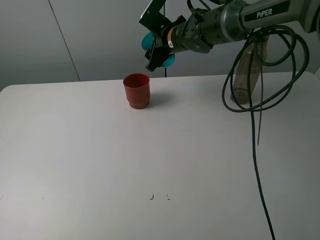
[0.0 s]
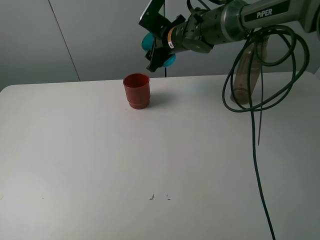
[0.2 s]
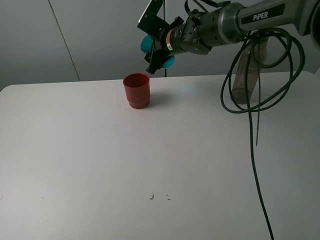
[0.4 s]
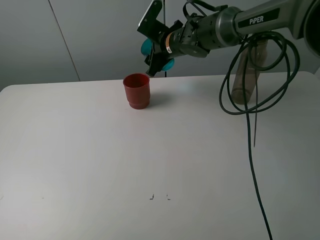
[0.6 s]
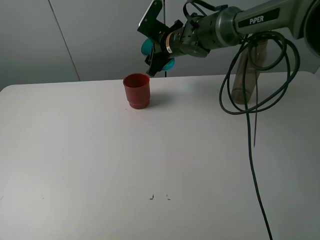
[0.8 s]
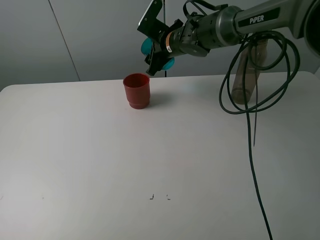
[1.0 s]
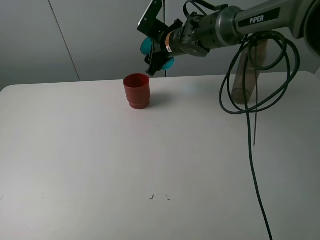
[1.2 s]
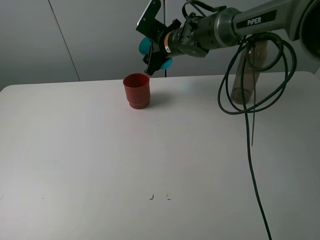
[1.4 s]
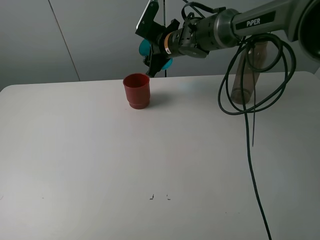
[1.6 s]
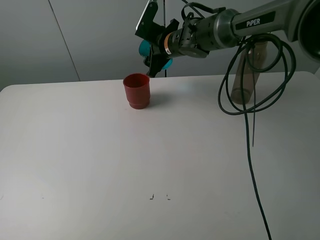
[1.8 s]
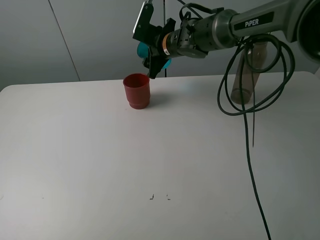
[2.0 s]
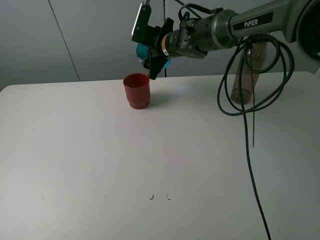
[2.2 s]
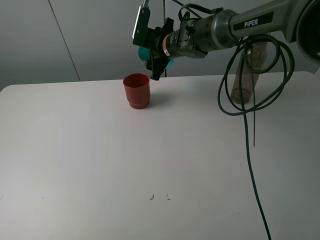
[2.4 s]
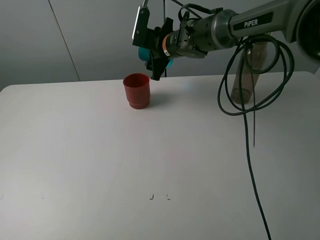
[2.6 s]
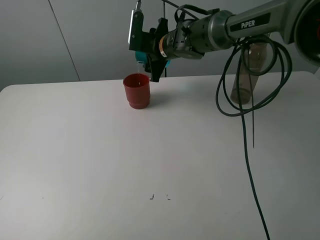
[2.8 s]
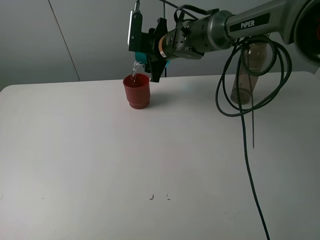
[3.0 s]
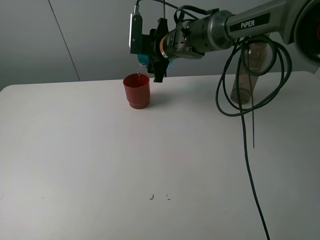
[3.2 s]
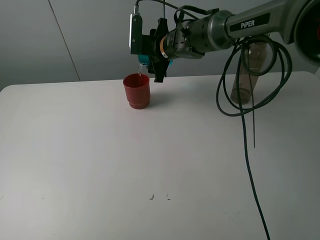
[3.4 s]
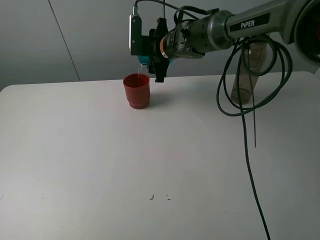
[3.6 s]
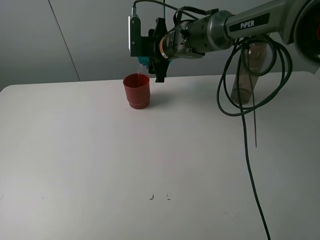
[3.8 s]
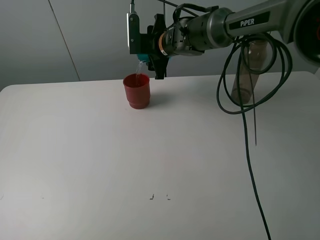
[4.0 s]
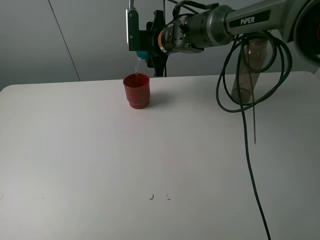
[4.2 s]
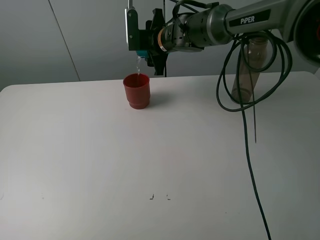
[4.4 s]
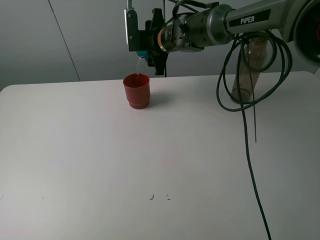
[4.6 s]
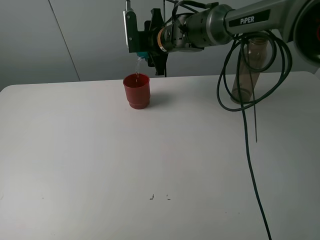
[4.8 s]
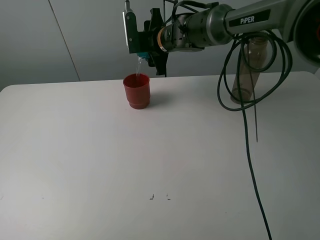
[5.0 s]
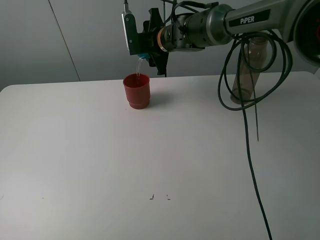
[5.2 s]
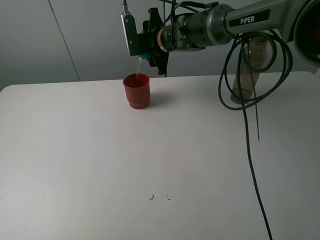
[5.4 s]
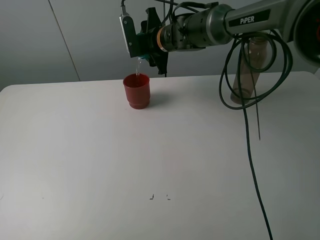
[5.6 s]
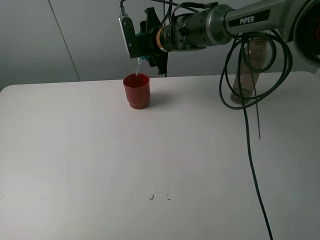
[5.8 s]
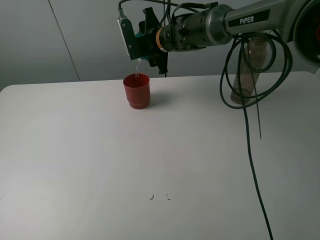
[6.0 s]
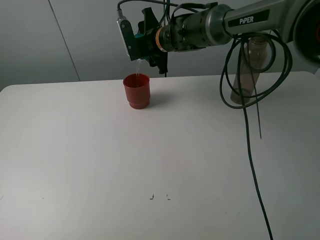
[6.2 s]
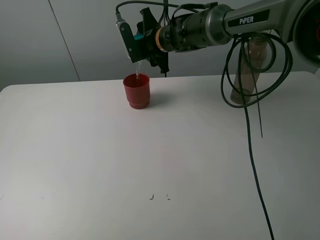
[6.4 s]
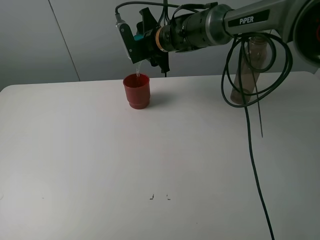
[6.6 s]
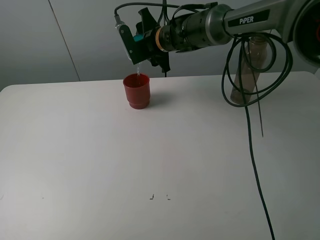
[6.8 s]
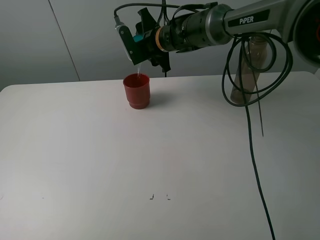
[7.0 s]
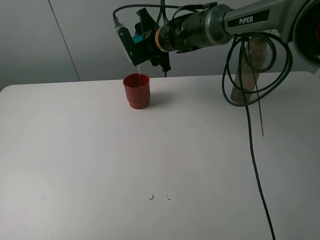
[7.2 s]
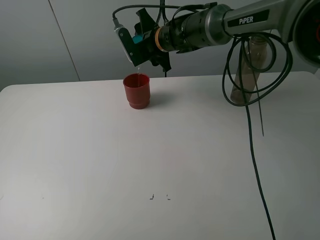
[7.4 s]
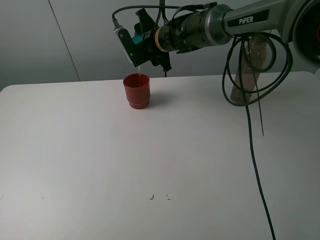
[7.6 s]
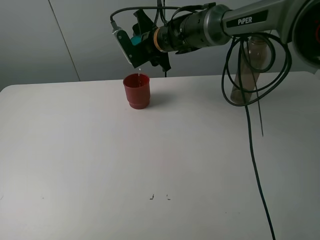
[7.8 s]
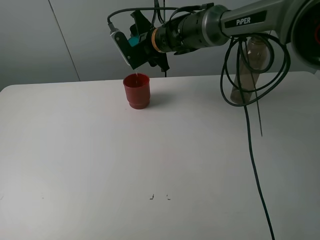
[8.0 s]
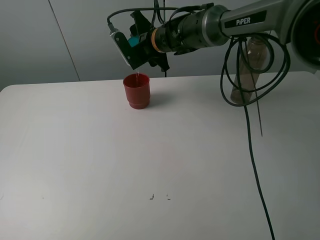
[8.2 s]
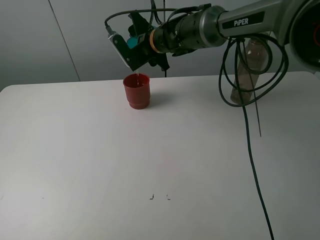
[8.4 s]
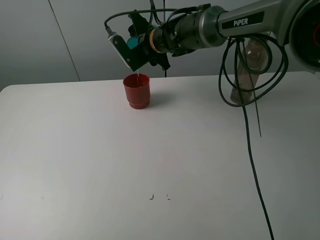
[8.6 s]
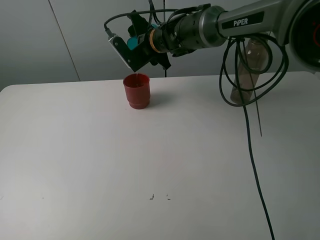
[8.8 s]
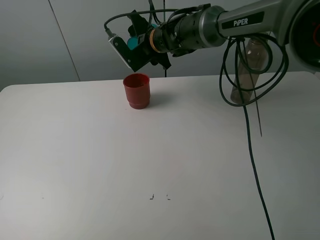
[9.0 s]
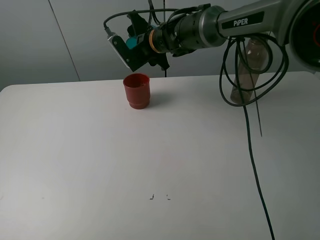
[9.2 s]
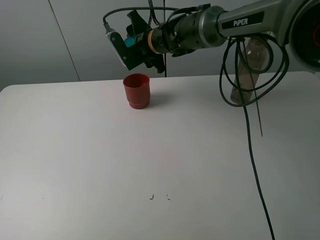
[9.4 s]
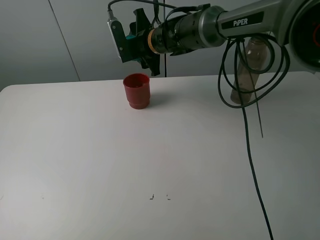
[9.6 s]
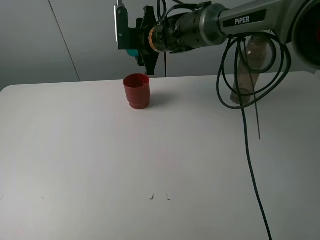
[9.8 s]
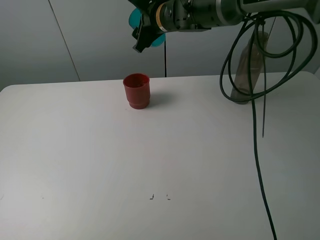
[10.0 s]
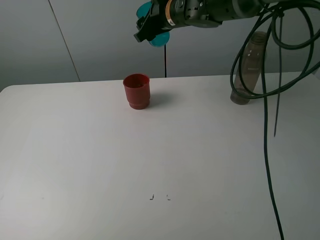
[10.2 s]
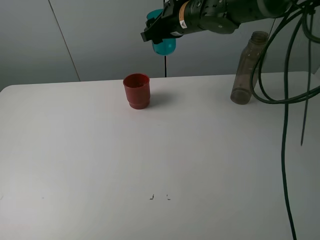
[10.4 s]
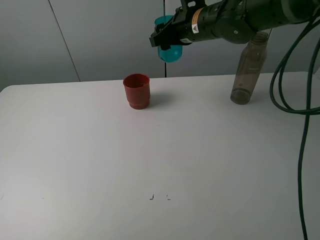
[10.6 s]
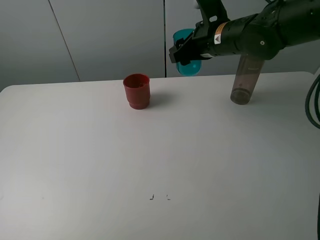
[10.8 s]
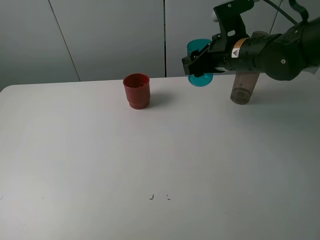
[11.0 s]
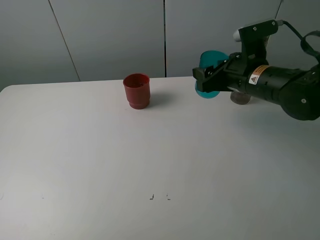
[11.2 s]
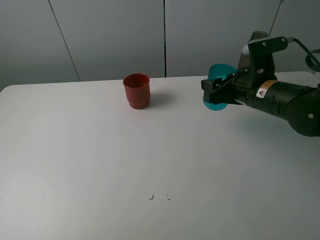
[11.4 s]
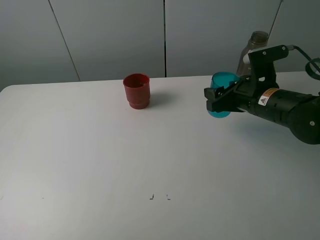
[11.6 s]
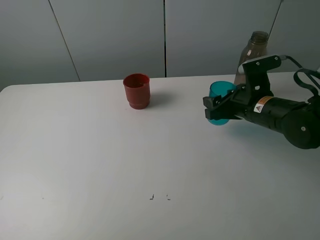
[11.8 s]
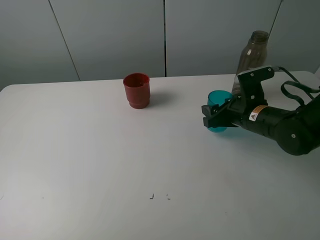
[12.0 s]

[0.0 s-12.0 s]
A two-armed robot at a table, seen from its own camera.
Task of the whole recording: pick up the bottle and pour water into the cup, then pick up the cup containing water and pour it into another cup.
Step, 0.0 to 9.0 s: Pour water from blue cup to red cup with the right gripper.
0.0 to 1.6 s: The grippers make only small movements.
3.0 to 4.4 s: The grippers stay close to where they were, moving slightly.
4.4 to 6.0 s: There are only small adjustments of the grippers.
6.0 to 7.6 s: There are only small adjustments of the grippers.
7.6 to 9.0 s: There are only small adjustments of the grippers.
9.0 to 10.4 s: The right gripper heads to the right and upward, covering approximately 10 cm.
10.4 to 12.0 s: The right gripper heads downward, backward and to the right, covering approximately 25 cm.

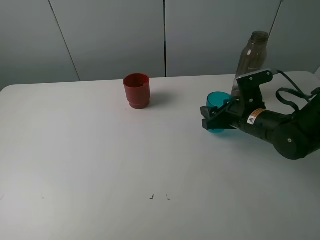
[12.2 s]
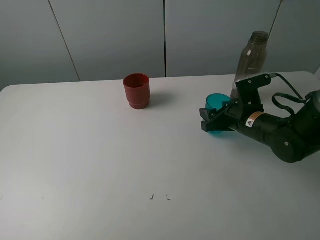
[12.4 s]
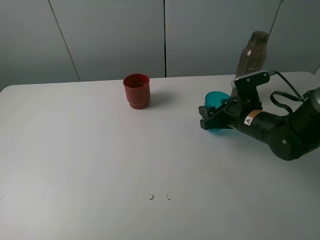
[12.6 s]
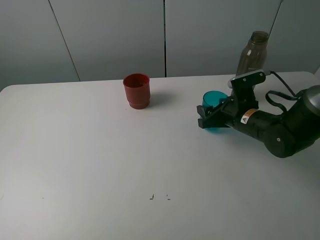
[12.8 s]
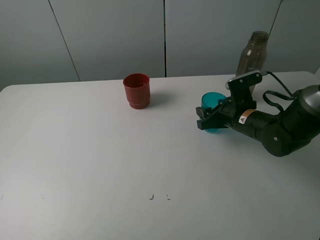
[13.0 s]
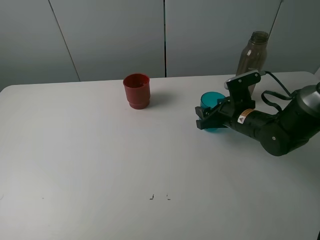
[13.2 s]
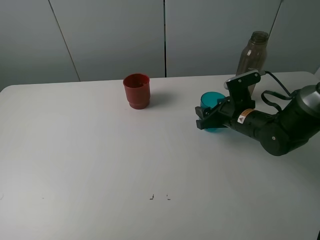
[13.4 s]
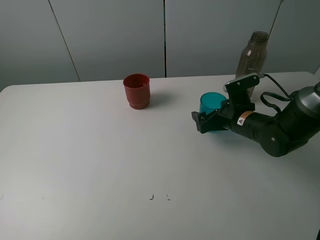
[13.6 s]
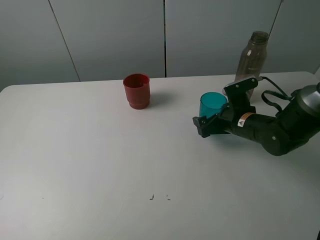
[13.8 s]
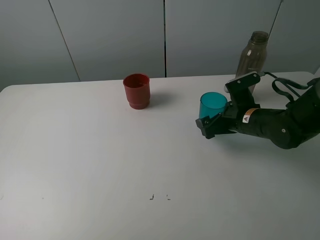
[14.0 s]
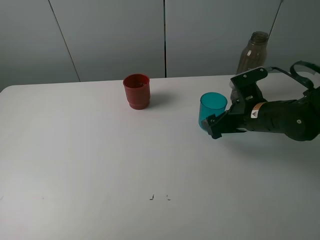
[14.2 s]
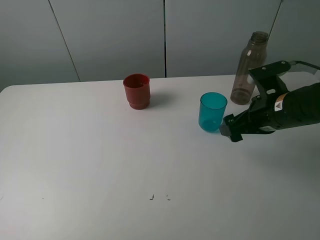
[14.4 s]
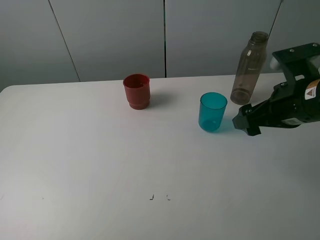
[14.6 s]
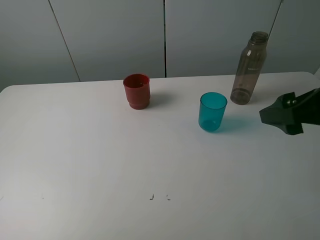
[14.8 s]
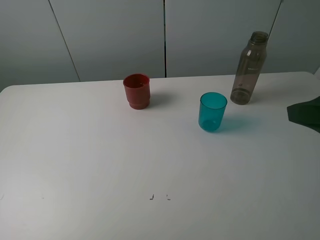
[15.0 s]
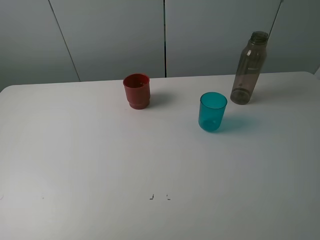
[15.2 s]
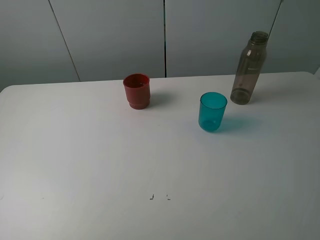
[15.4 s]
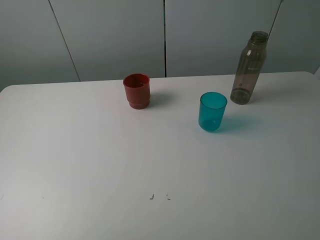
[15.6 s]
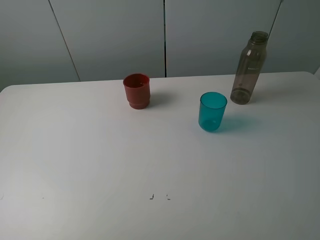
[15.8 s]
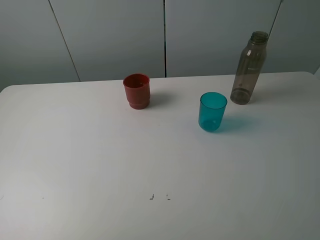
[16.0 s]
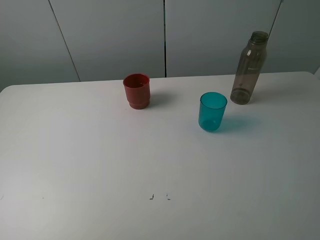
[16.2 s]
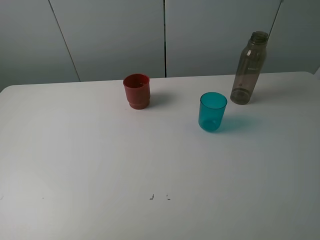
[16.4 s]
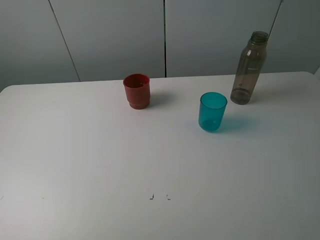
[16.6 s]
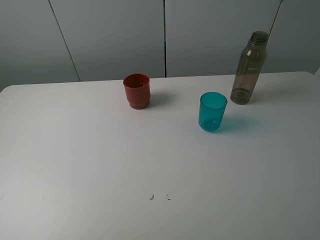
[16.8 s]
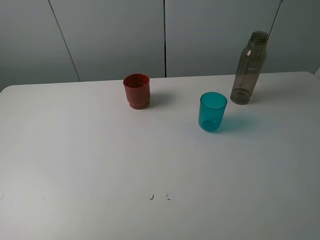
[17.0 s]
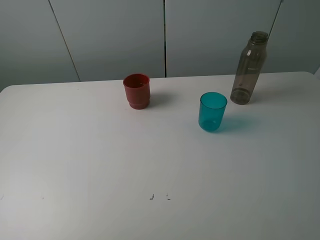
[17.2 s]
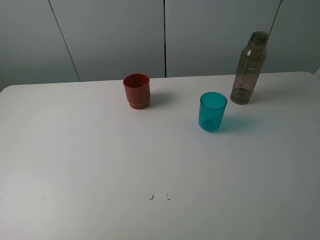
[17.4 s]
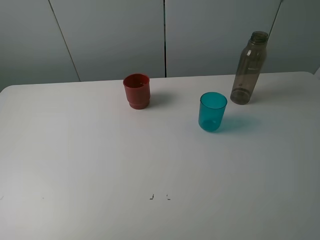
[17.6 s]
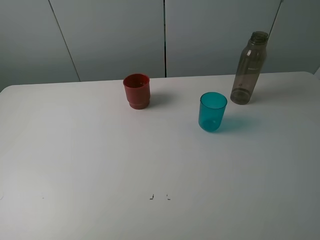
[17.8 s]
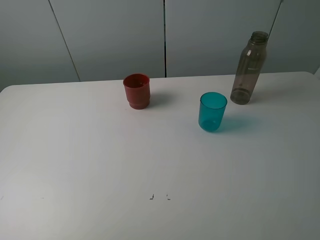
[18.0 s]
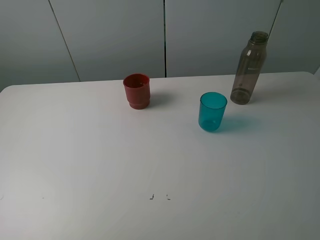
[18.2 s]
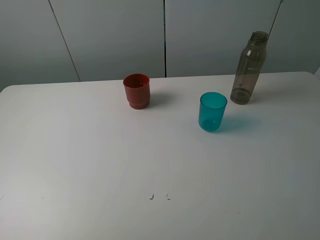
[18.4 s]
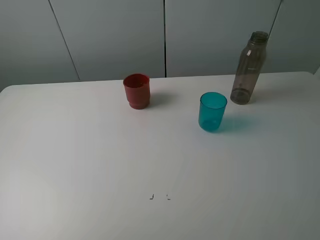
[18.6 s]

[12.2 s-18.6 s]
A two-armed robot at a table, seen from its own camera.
Task of the whole recording: pick up the bottle and pour water into the cup, then pick up the cup containing water and pour it into another cup.
12.2 to 13.8 s: The right gripper opens its fingers.
13.8 to 15.4 s: The right gripper shifts some 35 cm backward and upward.
17.0 to 18.6 s: The two grippers keep their place.

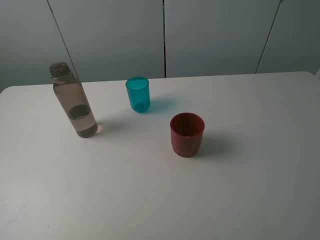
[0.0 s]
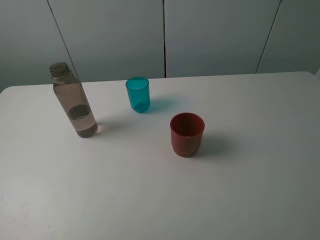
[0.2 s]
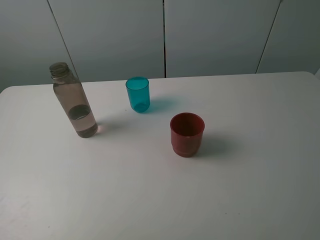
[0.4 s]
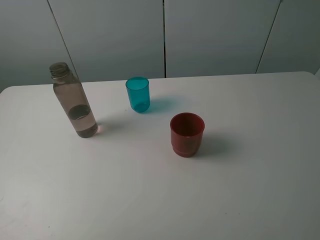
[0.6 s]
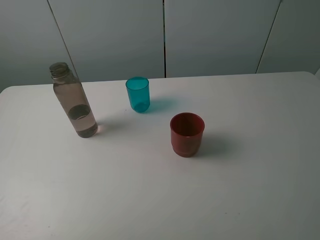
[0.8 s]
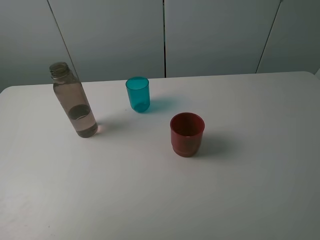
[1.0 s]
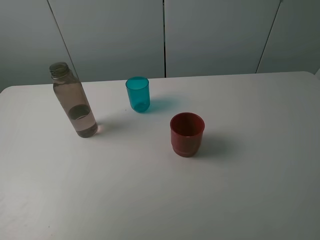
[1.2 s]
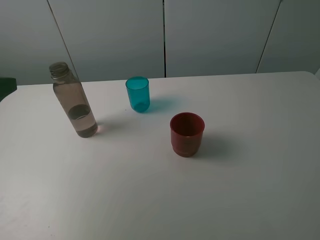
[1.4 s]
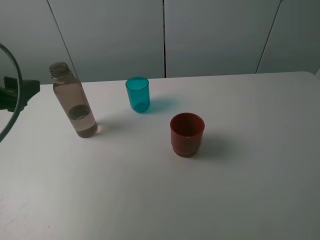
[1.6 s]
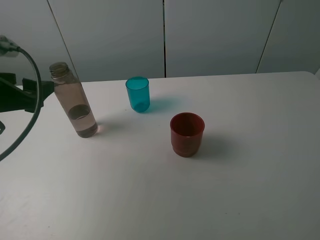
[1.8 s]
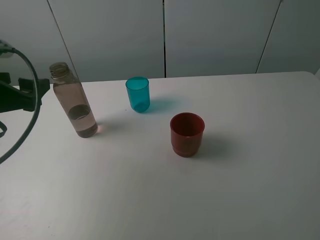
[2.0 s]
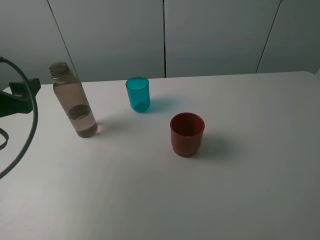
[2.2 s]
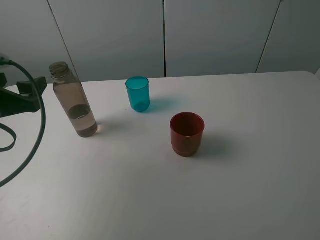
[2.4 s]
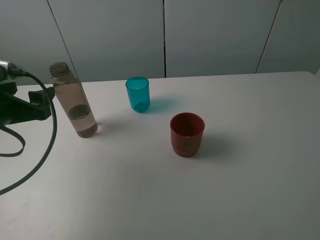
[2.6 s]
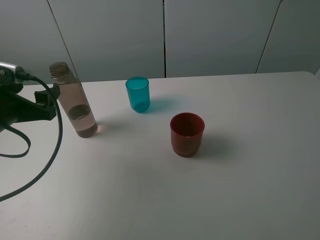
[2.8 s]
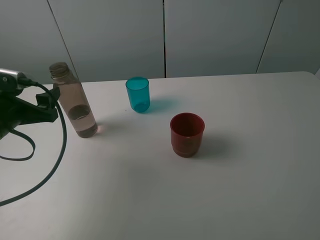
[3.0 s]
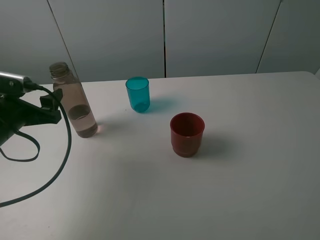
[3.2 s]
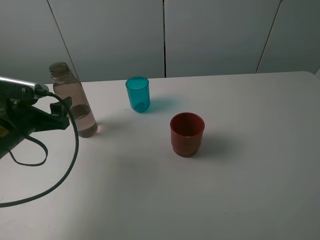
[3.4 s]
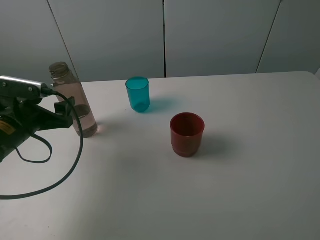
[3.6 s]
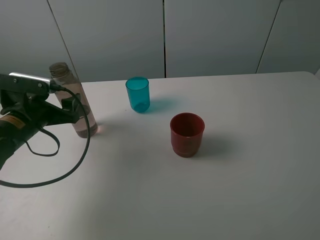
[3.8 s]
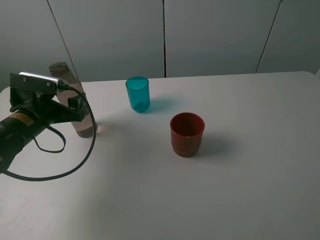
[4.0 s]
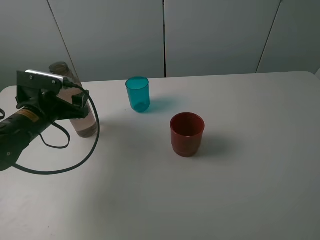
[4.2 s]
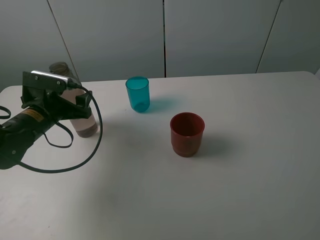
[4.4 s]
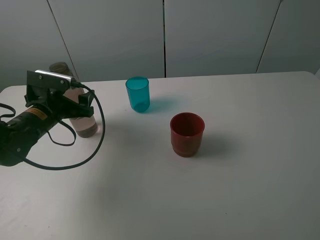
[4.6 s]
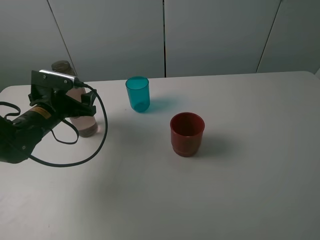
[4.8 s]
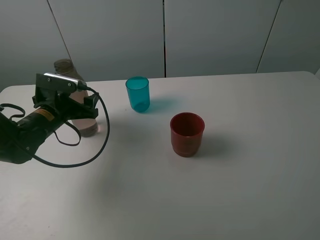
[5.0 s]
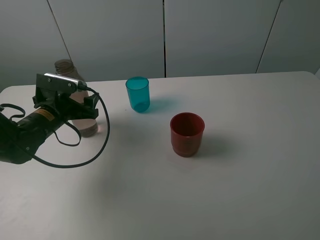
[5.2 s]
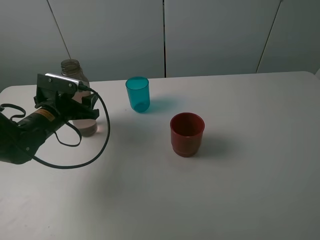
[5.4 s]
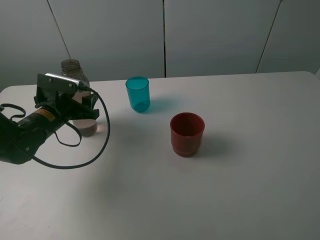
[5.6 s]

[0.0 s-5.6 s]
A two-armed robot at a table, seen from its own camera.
Task of the whole recording: pick up the bottle and pour water into the cup, then pick up the cup containing water and pour it into another cup.
0.0 to 1.4 s: The left gripper goes approximately 20 cm forward.
1.4 to 2.8 s: The left gripper is displaced downward by some 10 cm.
2.8 to 4.2 s: The left gripper shifts about 10 cm forward and downward.
4.2 to 5.6 s: The left gripper closes up.
